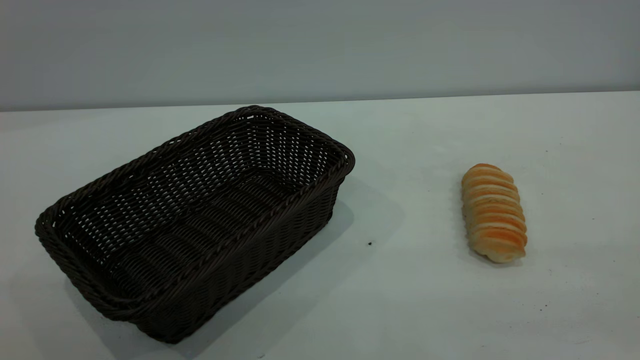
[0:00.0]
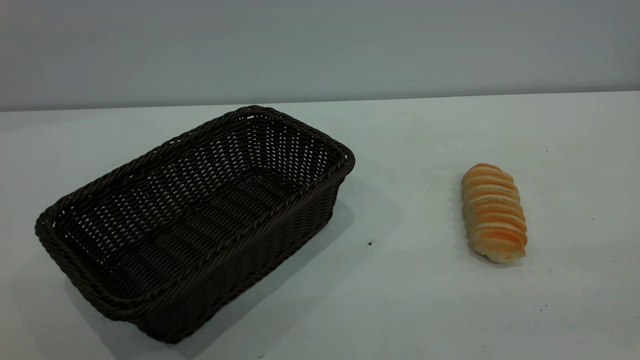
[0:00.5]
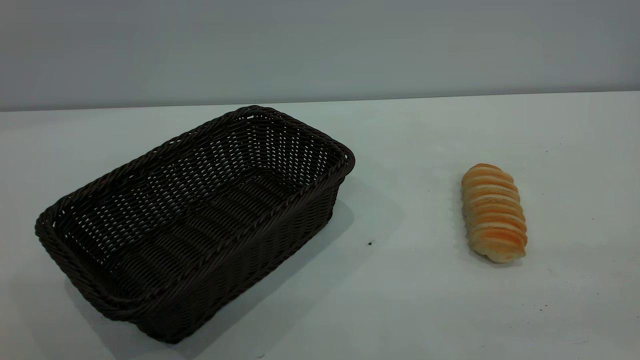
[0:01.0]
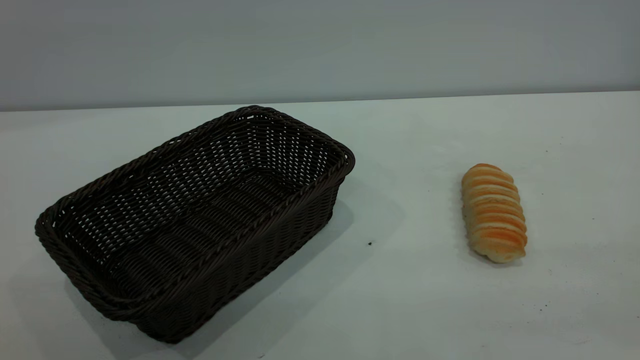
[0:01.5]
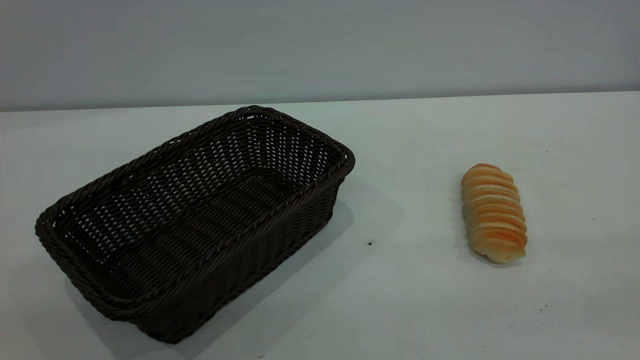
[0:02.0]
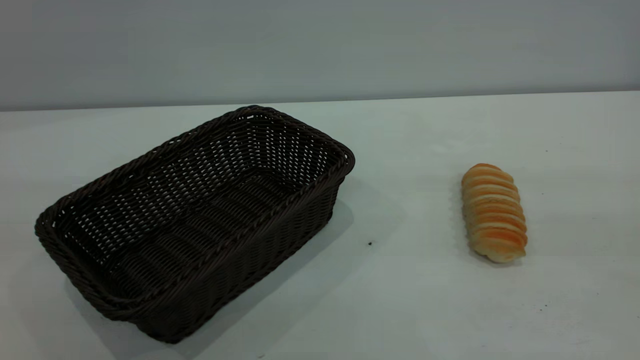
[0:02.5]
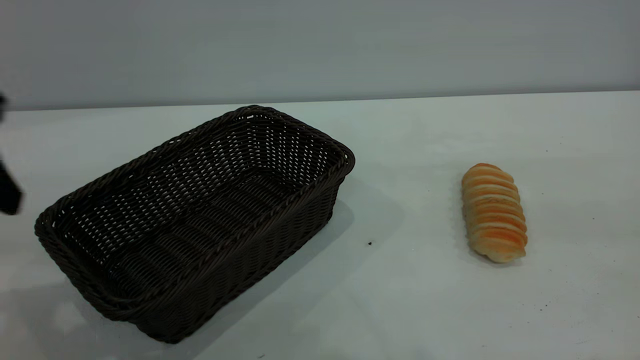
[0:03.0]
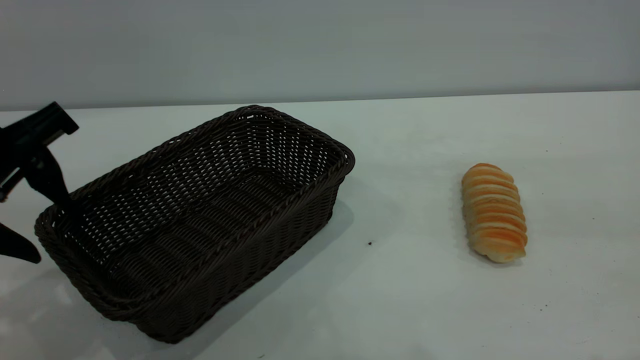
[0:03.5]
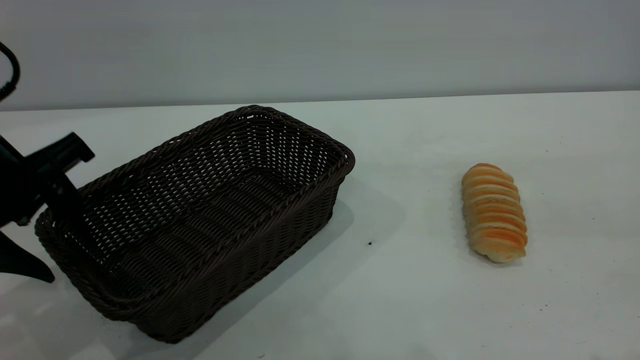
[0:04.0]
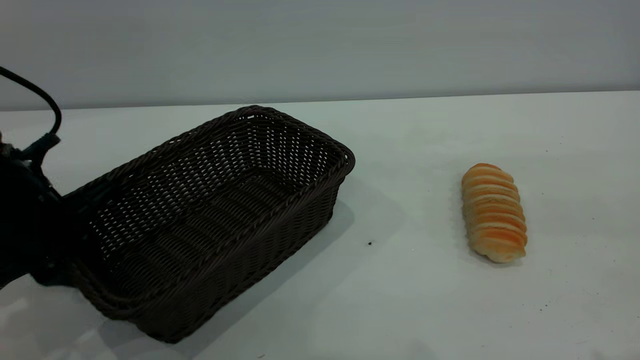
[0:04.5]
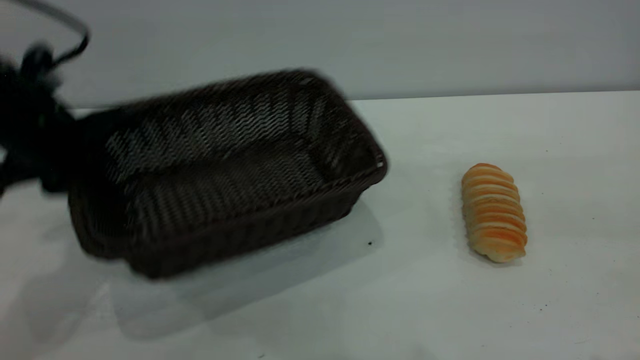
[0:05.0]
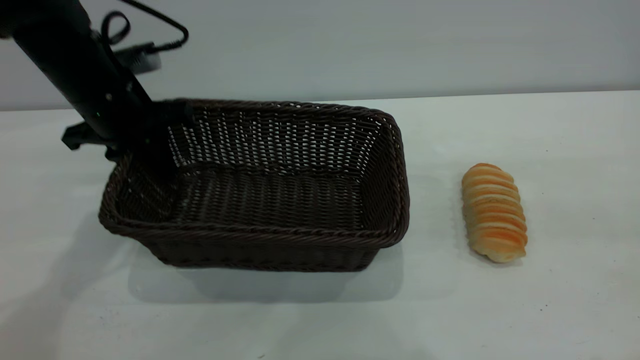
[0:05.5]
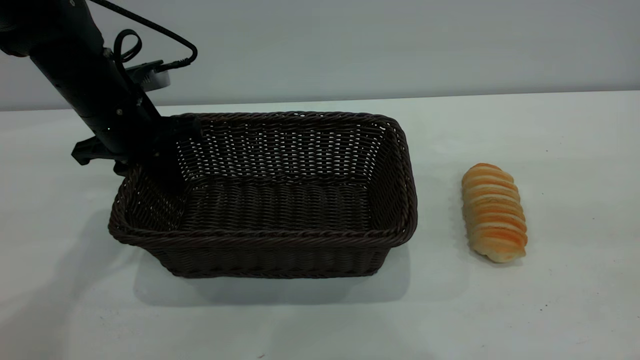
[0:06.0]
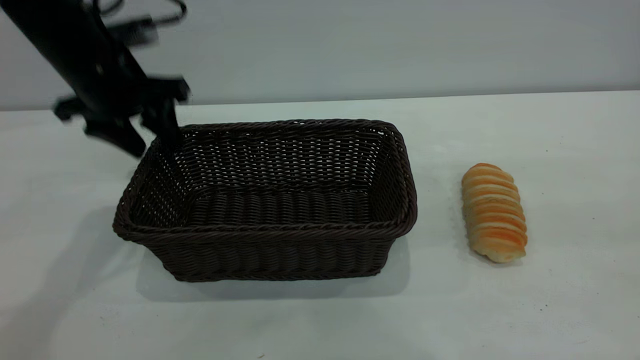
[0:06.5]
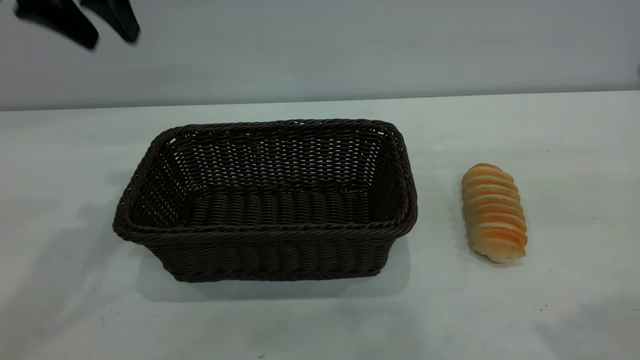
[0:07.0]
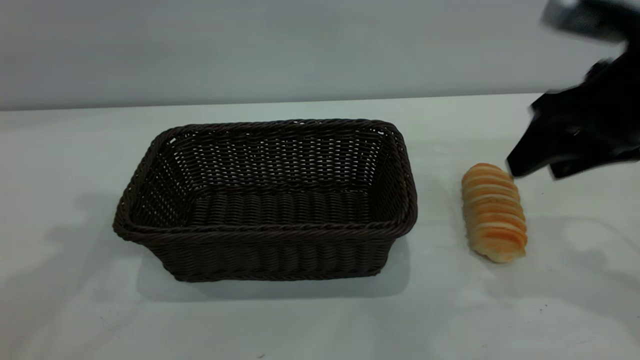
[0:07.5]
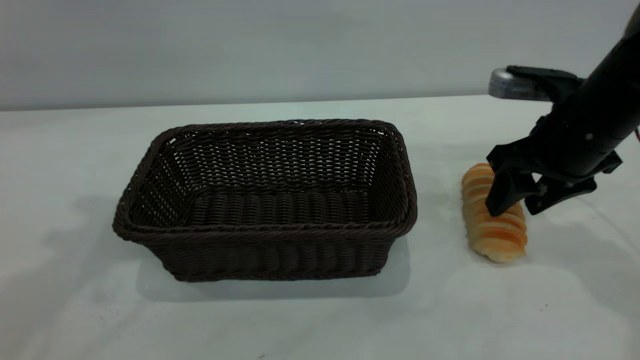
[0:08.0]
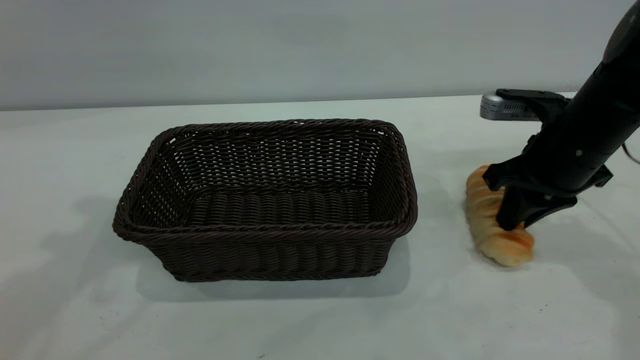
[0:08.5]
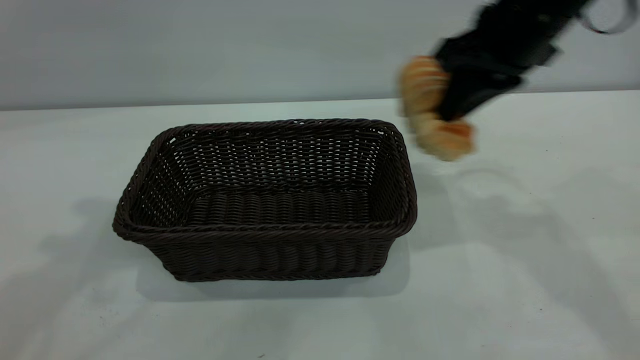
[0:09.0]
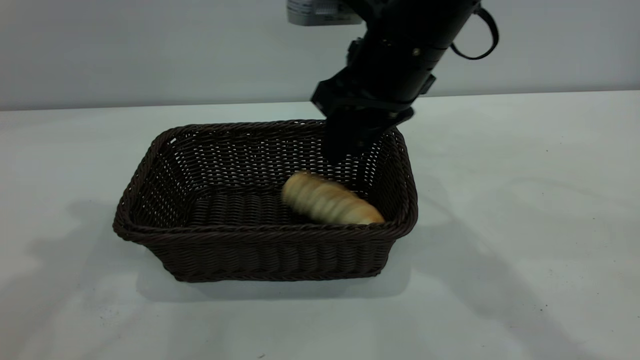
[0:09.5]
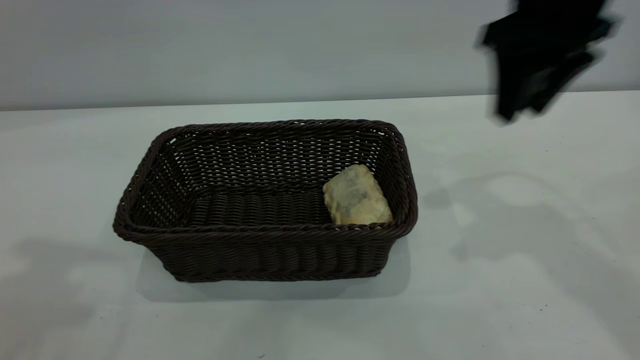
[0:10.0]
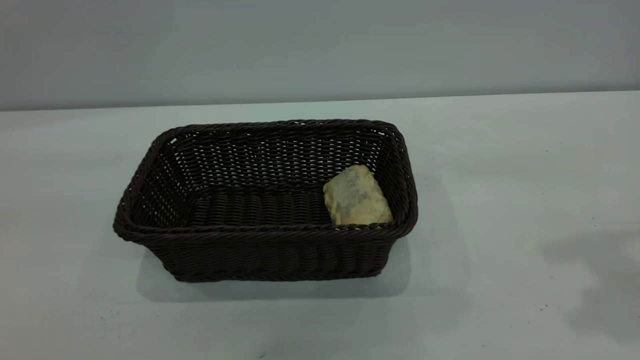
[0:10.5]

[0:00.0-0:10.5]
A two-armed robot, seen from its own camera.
Task of the whole recording: One hand grasps the black basket and places it in the middle of the table, while the other hand picks up the long bread and puts it into the black basket.
Step, 0:00.0 to 0:06.5: Move the basket to the center of view.
Step, 0:09.0 to 0:09.5: place the bread into the basket.
0:02.0 to 0:04.0: The left gripper goes roughly 35 cm forward and downward.
0:04.0 to 0:06.5: The left gripper heads forward, covering some 15 cm, and closes, then reopens.
0:06.5 to 0:08.5: The left gripper travels upward and backward by some 20 cm. Meanwhile the right gripper heads forward and downward, covering about 30 cm, and closes.
0:08.5 to 0:10.5: The right gripper shifts some 25 cm upward and backward, and opens its fingers. Meanwhile the left gripper moves backward, roughly 20 cm.

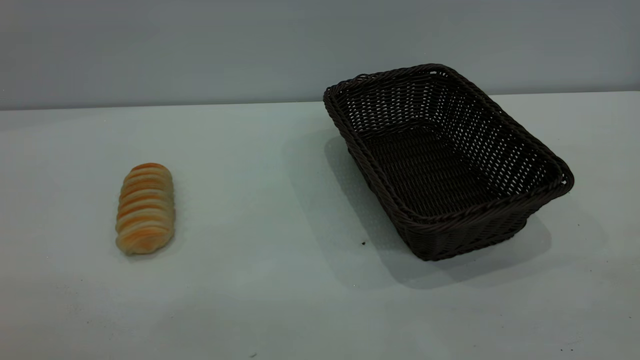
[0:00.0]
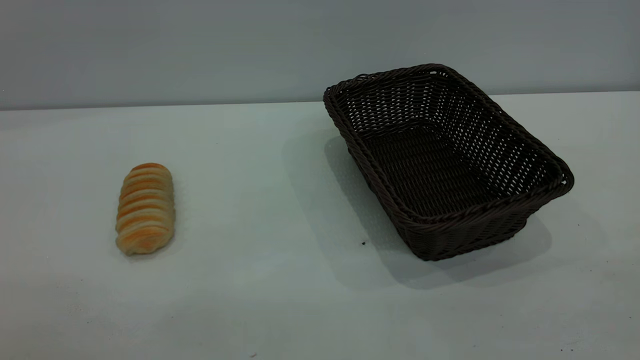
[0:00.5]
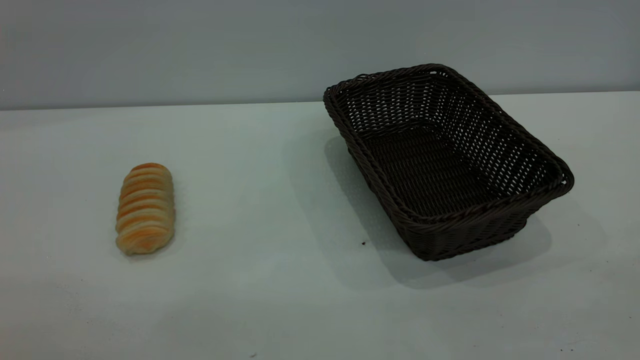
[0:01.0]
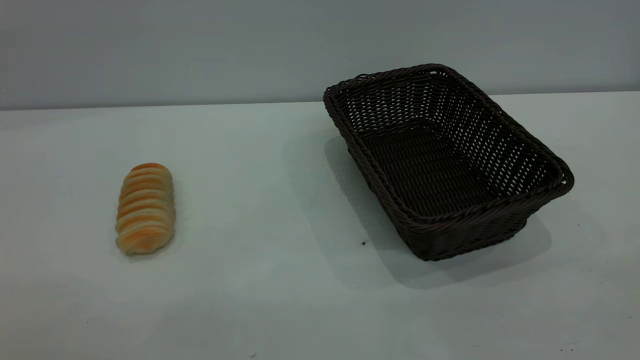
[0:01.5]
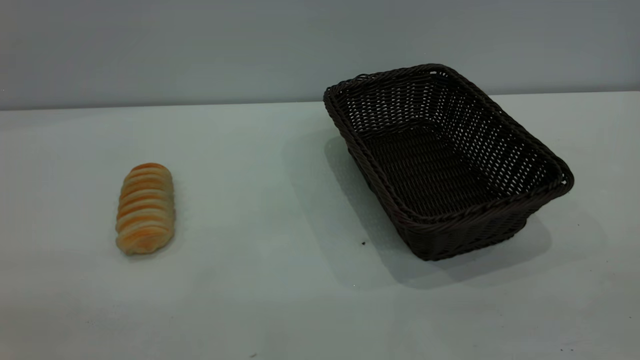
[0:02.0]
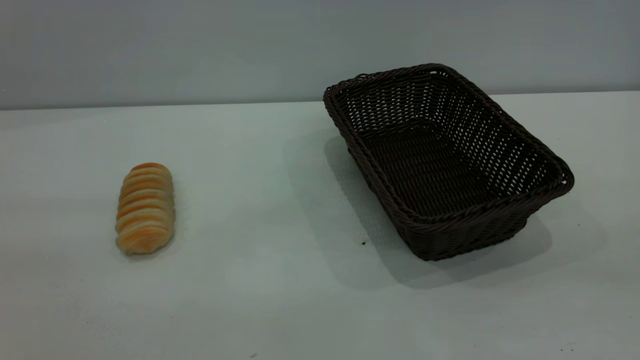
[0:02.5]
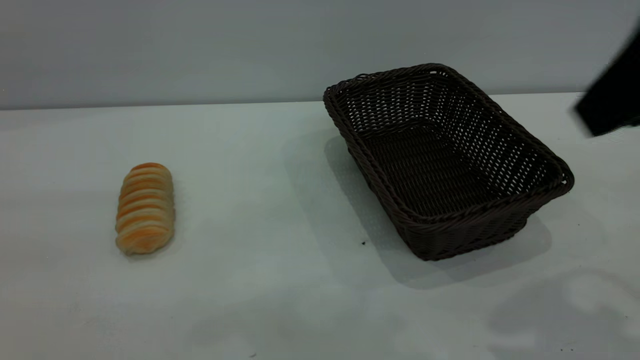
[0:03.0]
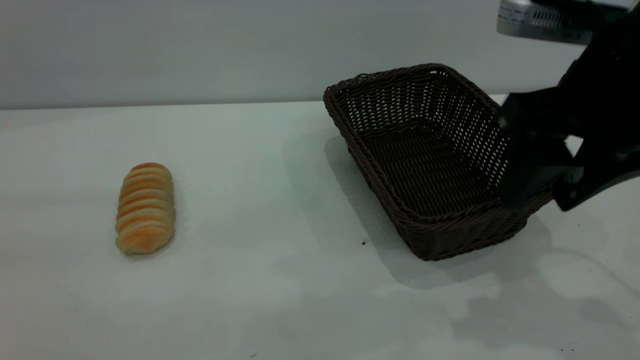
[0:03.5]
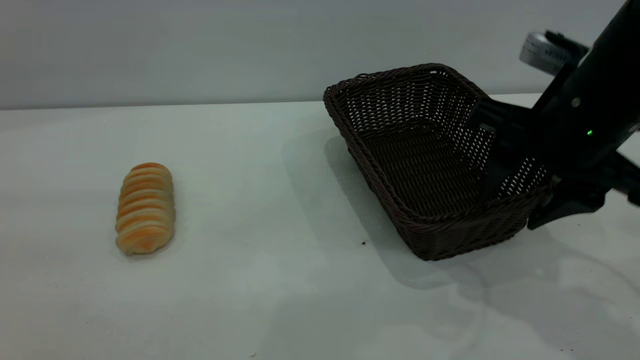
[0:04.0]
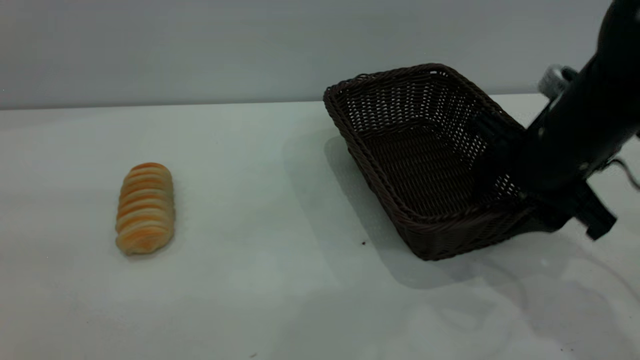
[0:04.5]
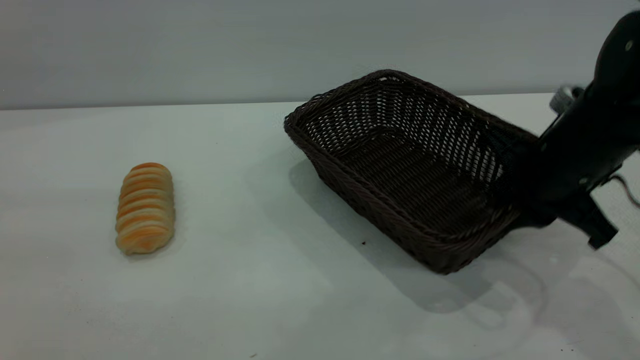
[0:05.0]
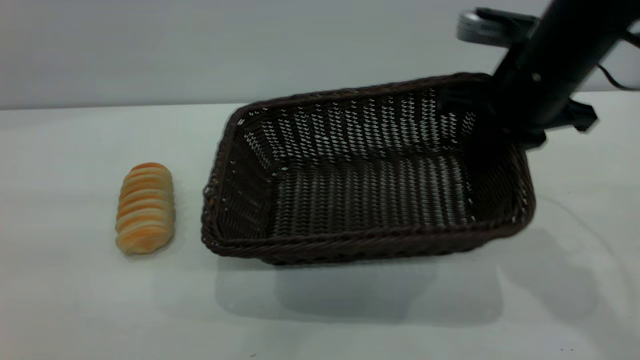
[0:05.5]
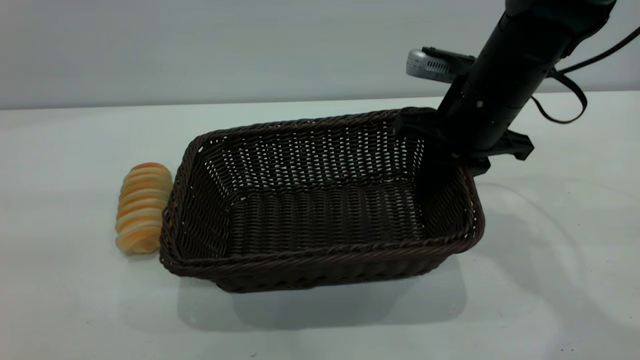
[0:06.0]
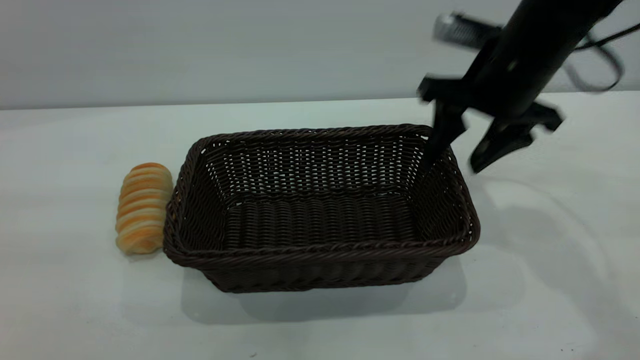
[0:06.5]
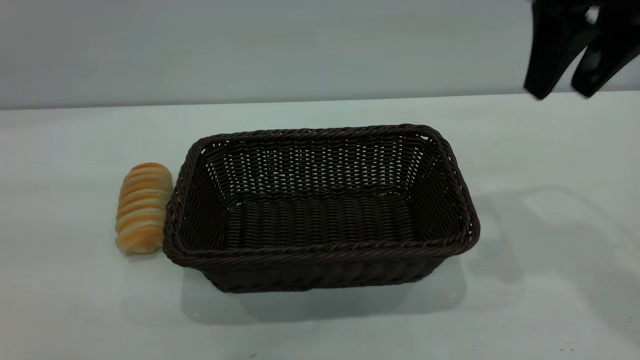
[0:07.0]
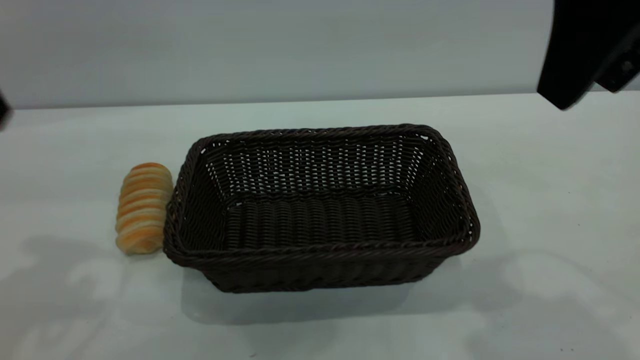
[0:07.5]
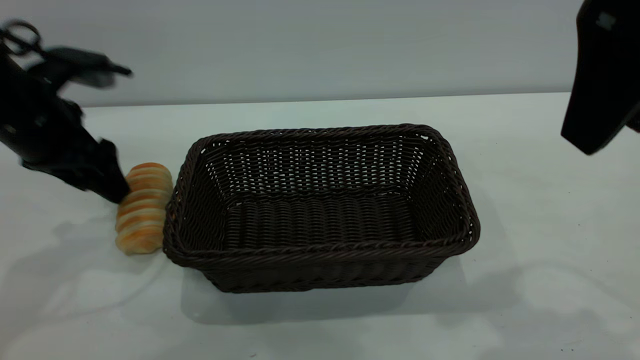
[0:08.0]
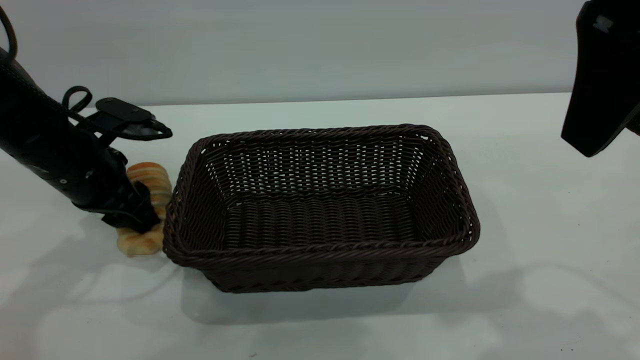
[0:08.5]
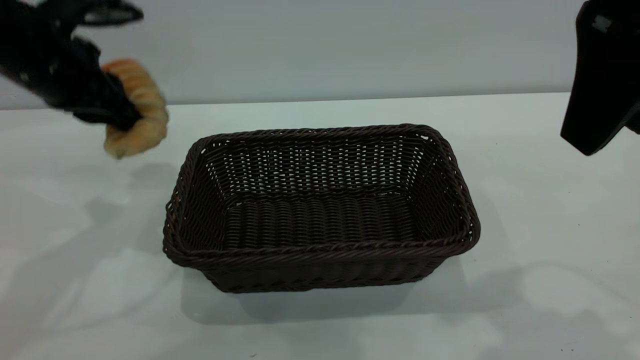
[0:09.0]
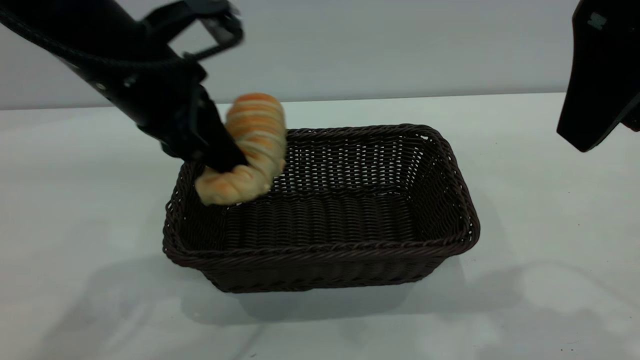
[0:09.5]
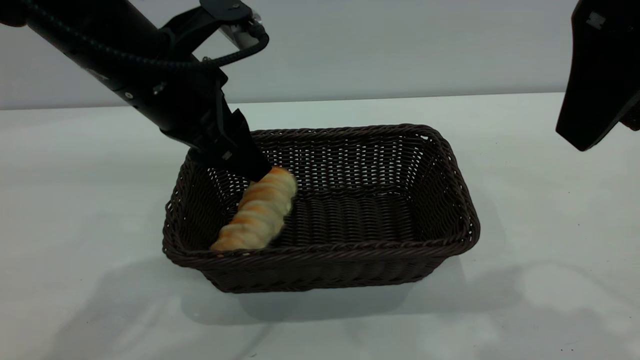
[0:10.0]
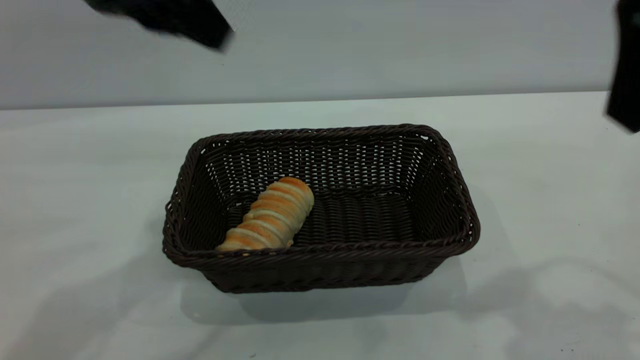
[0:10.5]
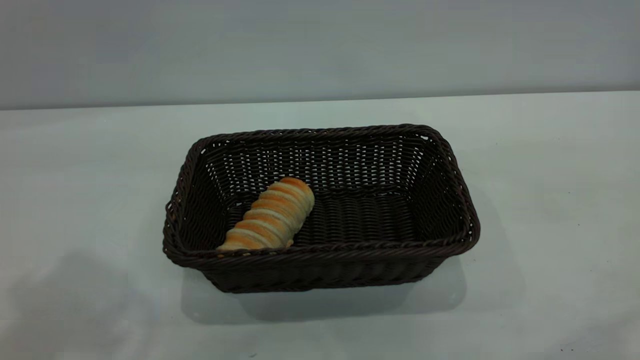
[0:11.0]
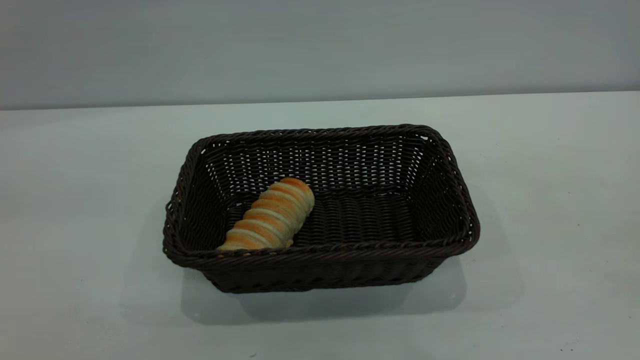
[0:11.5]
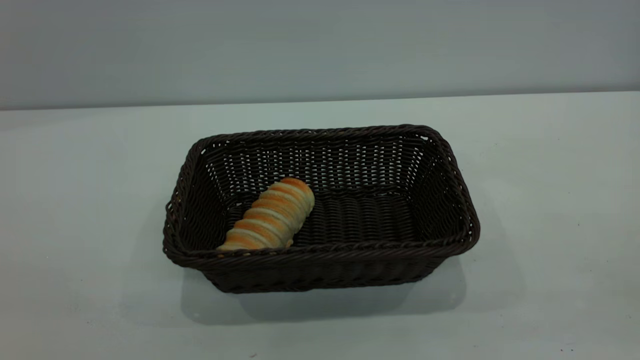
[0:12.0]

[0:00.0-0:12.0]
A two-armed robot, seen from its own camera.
Task of the whole recording: One hand grasps the black basket and places it in the middle of the table, while the other hand picks up the long bread and puts it into the black basket.
Step, 0:00.0 to 0:06.5: Move the basket to the center of view.
Step, 0:09.0 to 0:10.0: place the bread into the basket.
0:02.0 to 0:04.0: The right gripper goes about 35 cm forward and downward.
0:04.0 to 0:06.0: The right gripper is displaced forward by roughly 10 cm, and closes.
0:06.0 to 0:08.0: The right gripper travels upward and backward by roughly 25 cm, and opens its fingers. The left gripper travels forward and downward by roughly 30 cm.
0:08.0 to 0:10.0: The left gripper goes roughly 15 cm to the right, and closes, then reopens.
0:10.0 to 0:12.0: The left gripper goes approximately 35 cm backward, upward and to the left, while the right gripper heads backward and to the right, covering about 25 cm.
